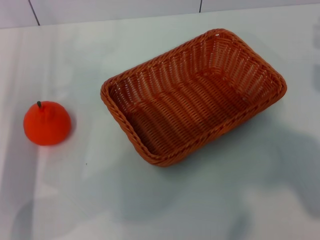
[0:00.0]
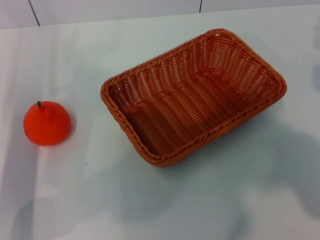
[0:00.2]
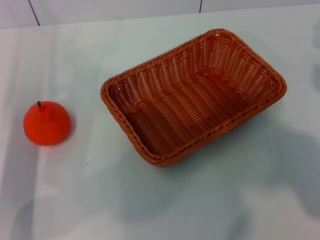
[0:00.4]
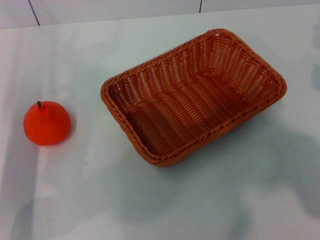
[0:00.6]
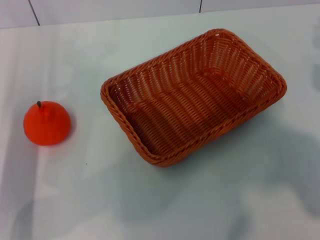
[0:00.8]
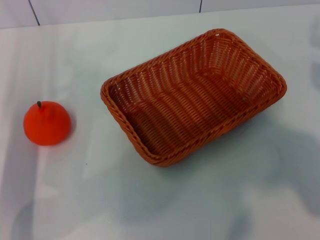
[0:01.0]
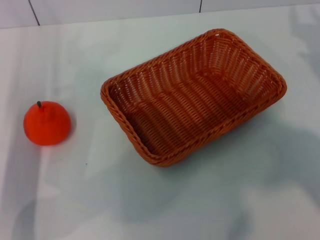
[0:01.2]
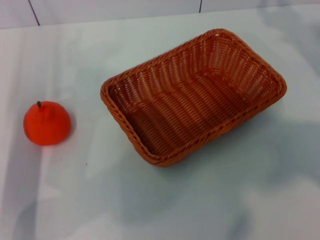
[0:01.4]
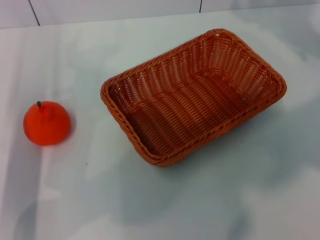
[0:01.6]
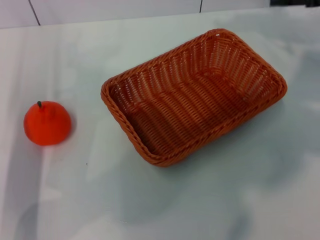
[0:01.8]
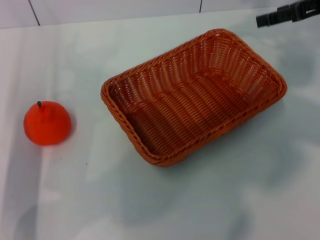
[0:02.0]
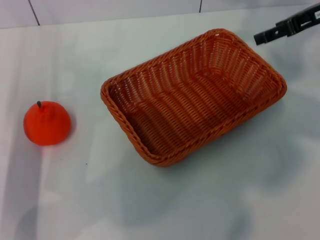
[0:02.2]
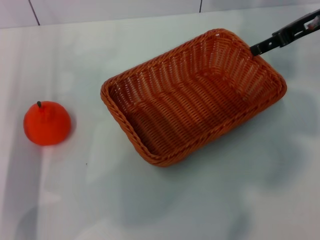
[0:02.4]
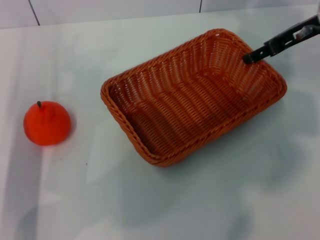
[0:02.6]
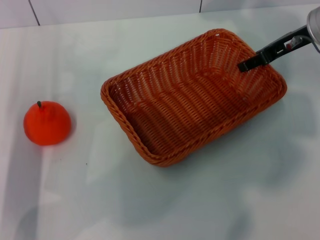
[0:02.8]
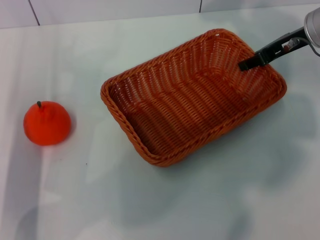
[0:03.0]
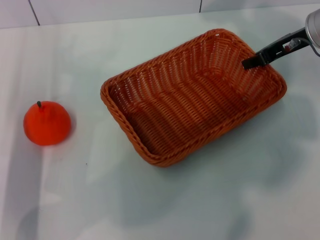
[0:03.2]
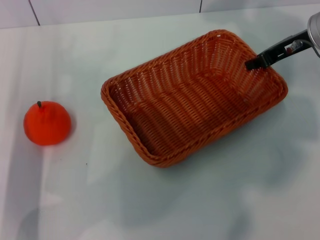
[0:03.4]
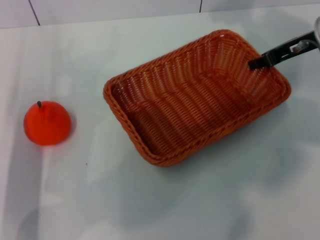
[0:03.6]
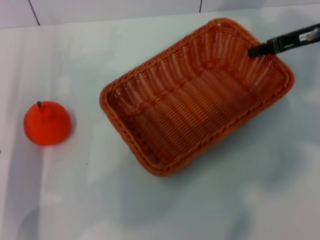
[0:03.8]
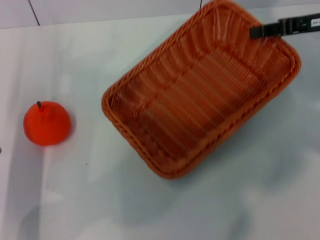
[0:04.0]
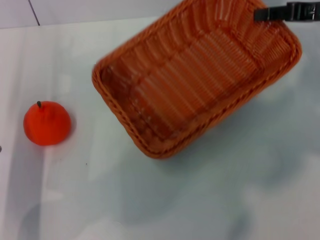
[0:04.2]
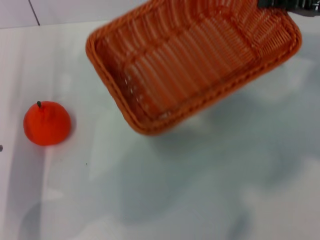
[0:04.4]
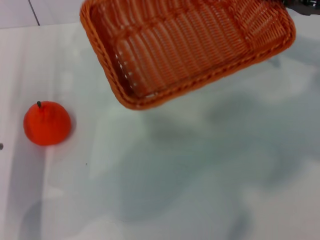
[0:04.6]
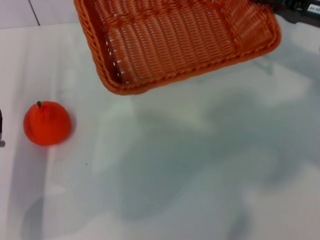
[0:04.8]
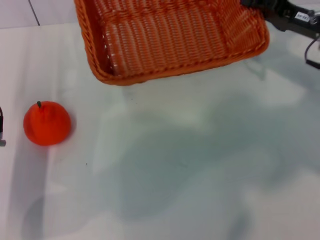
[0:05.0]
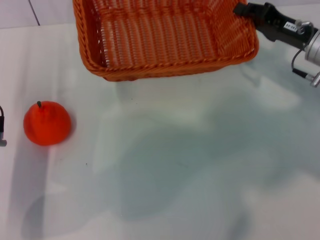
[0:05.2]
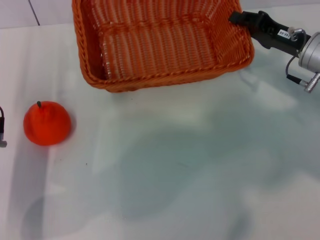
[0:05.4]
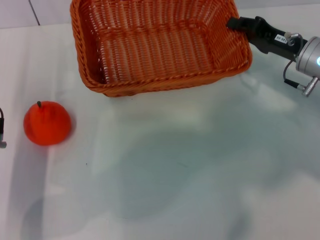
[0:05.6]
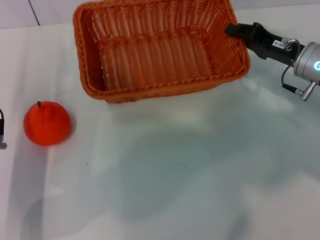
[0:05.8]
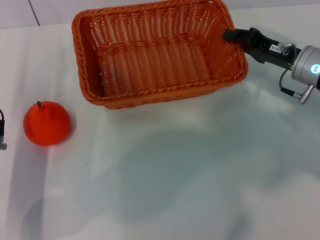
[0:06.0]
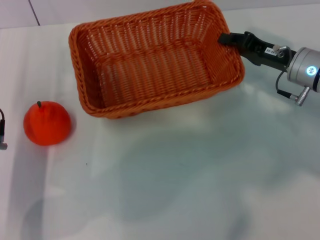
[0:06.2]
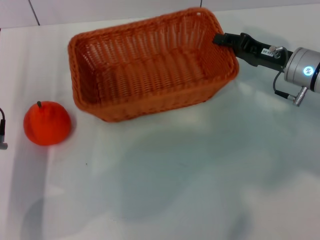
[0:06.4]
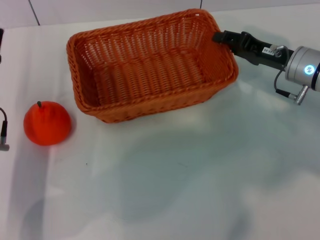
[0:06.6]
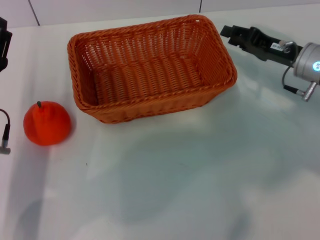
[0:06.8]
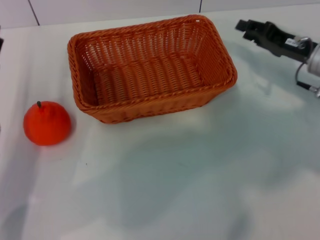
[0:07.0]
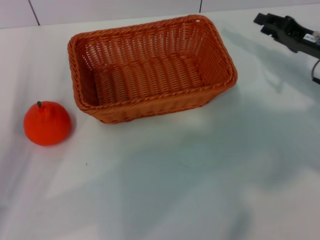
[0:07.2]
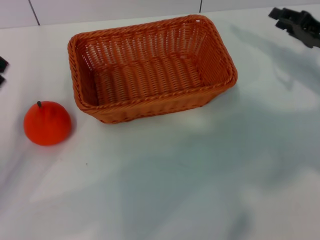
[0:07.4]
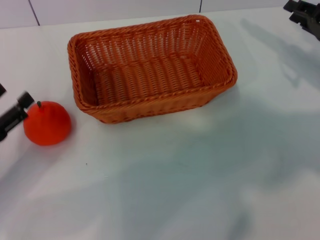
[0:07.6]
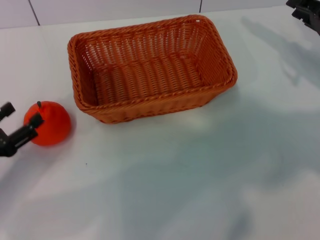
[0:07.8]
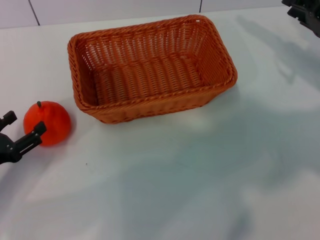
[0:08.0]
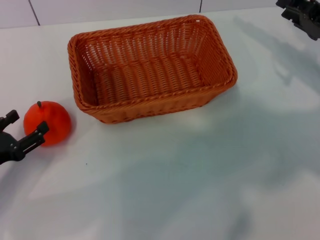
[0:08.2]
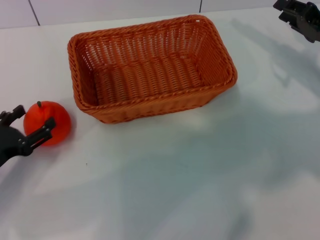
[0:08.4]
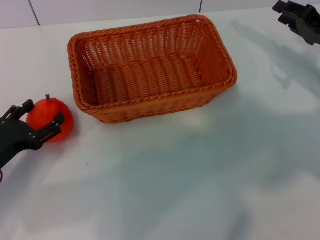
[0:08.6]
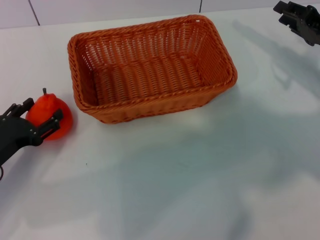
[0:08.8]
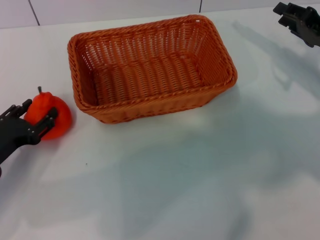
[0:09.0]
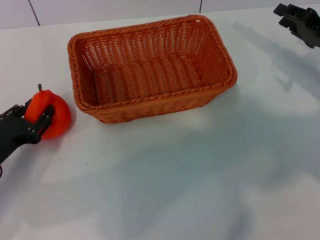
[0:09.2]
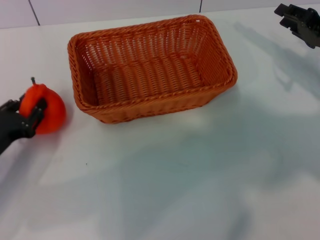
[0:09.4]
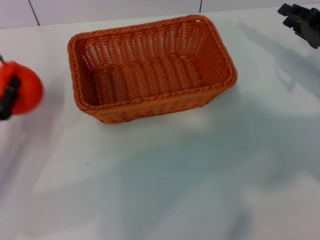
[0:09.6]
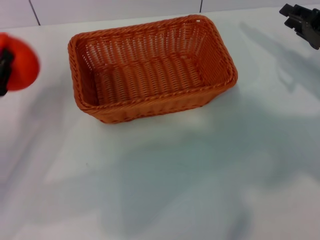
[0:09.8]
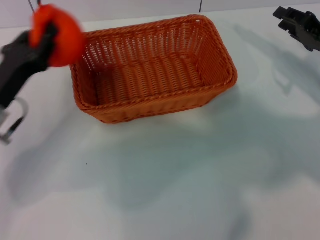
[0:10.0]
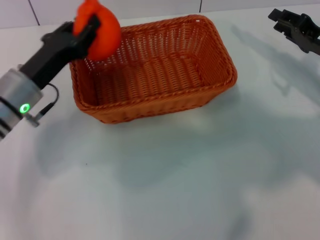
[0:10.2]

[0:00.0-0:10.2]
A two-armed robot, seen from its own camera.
Task of the whole recording: the right gripper pick up the yellow basket and place it horizontally in the middle of the table, the left gripper pick up the orange and place it into the yellow basket.
Step, 0.0 to 3.8 s: Pick up the light basket with the right gripper.
Step, 4.0 to 6.6 s: Place the light basket in the center of view with the right gripper.
Step, 6.8 to 9.4 s: Pick up the orange with the left gripper.
0.0 to 1.4 s: The right gripper moves upward and forward, about 10 cm.
1.4 to 3.0 s: The right gripper travels to the left and forward by about 15 cm, and opens and closes again.
3.0 to 4.4 s: The right gripper moves to the right, some 5 cm, and closes up.
4.4 to 5.8 s: The right gripper shifts approximately 10 cm downward and to the left.
5.8 to 7.2 s: The left gripper shifts by some 5 cm. Meanwhile the right gripper opens up.
8.8 to 10.2 s: The left gripper moves forward, to the right and upward, roughly 15 cm, and closes up.

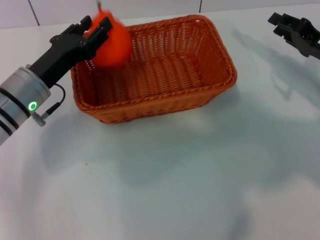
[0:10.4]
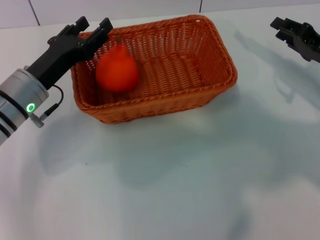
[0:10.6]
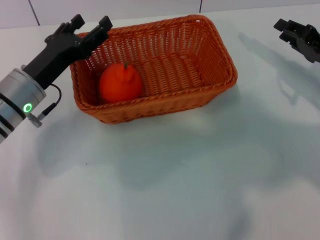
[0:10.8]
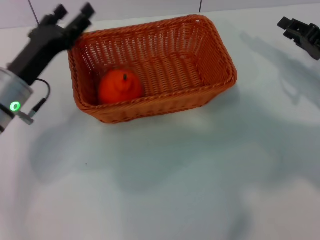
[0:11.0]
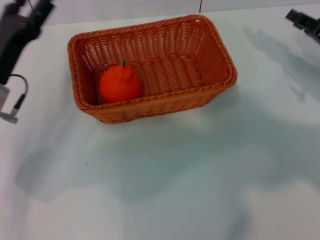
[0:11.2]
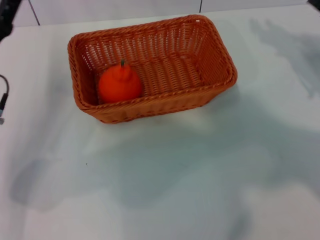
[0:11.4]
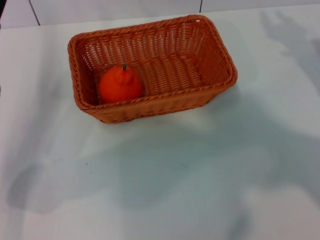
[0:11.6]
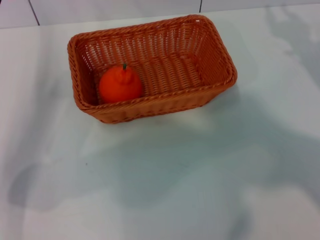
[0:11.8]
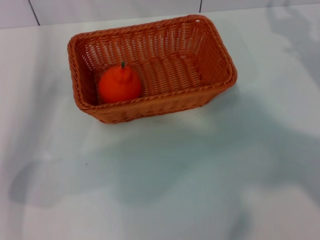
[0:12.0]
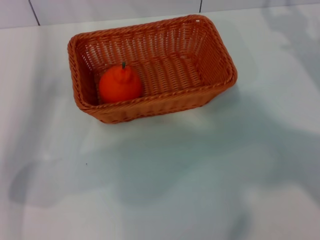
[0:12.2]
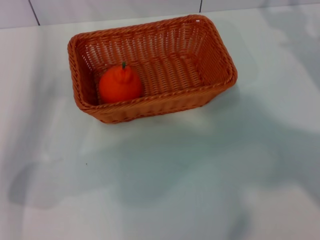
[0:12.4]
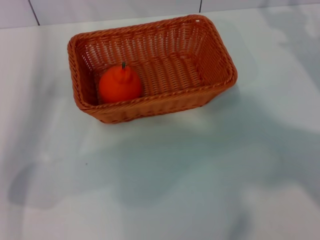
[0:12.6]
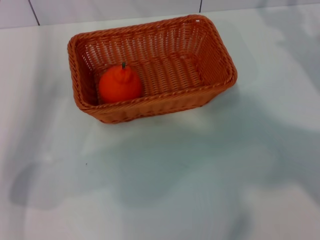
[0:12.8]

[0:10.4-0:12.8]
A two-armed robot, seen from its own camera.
Task of the whole recording: the right gripper pick up the yellow basket and place it horizontally in the middle of the table, the left gripper pick up the orange and place it into the yellow basket.
10.4 to 11.6 s: The left gripper moves to the left, approximately 5 cm, and opens up. The right gripper shifts by approximately 5 cm.

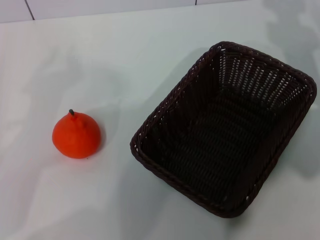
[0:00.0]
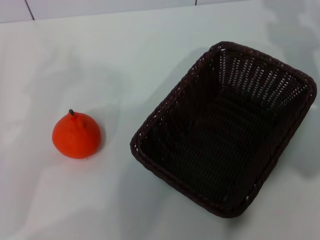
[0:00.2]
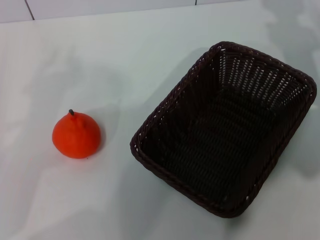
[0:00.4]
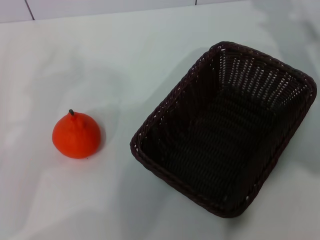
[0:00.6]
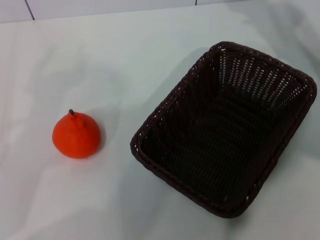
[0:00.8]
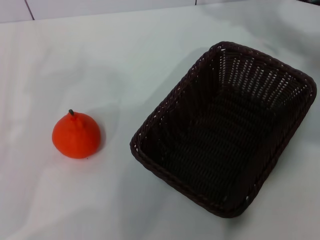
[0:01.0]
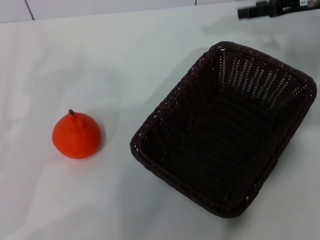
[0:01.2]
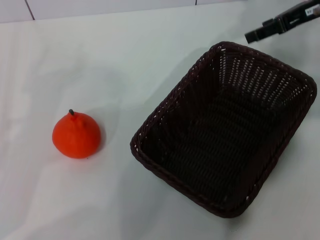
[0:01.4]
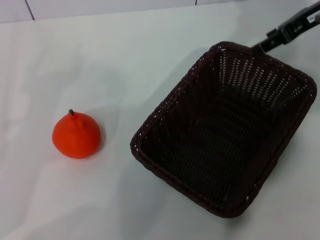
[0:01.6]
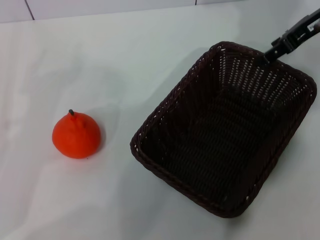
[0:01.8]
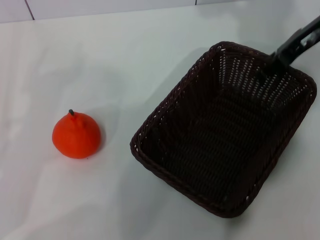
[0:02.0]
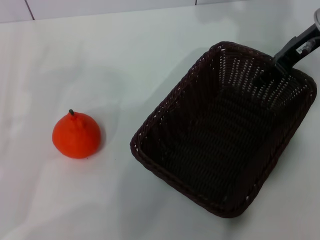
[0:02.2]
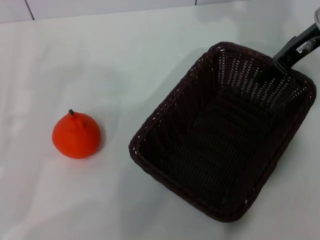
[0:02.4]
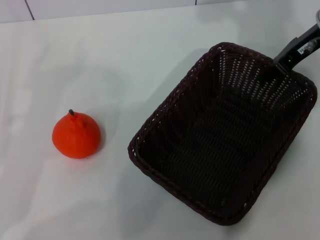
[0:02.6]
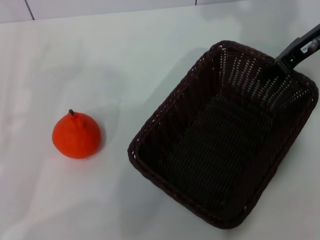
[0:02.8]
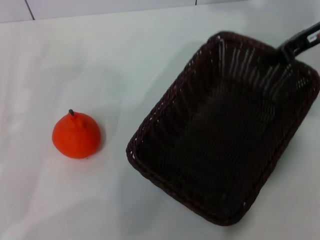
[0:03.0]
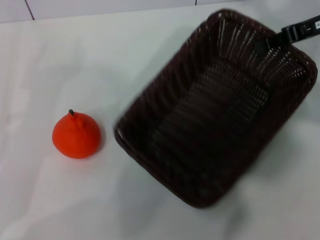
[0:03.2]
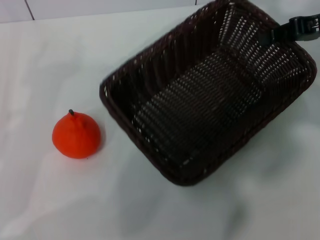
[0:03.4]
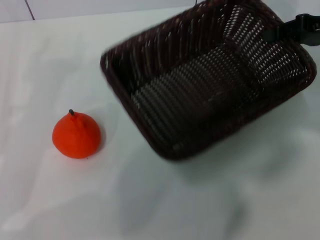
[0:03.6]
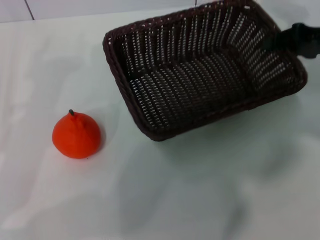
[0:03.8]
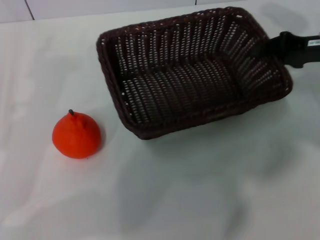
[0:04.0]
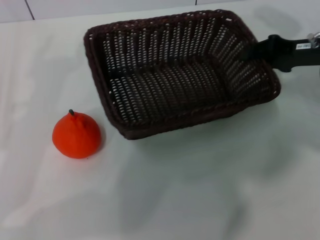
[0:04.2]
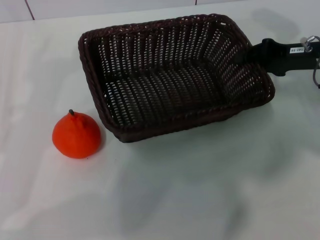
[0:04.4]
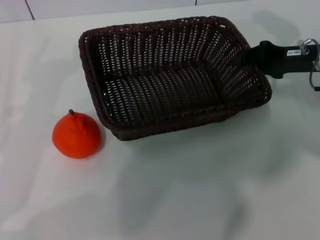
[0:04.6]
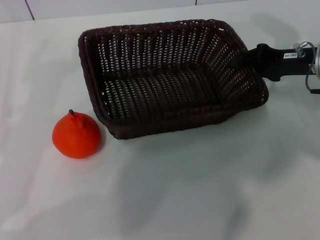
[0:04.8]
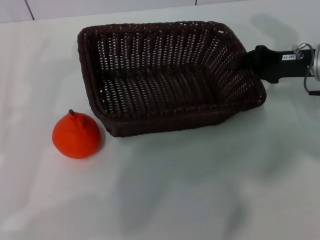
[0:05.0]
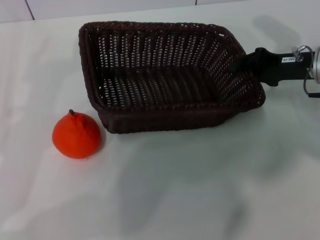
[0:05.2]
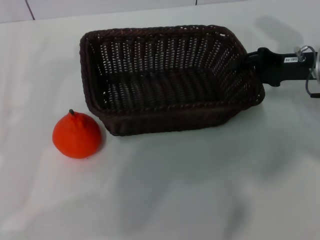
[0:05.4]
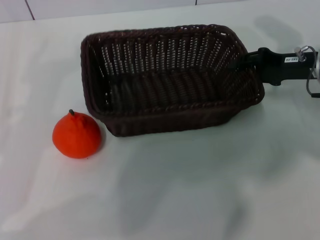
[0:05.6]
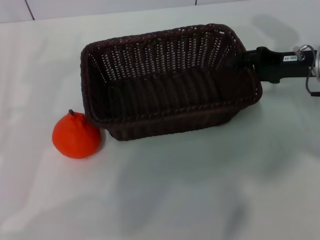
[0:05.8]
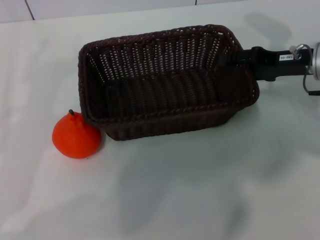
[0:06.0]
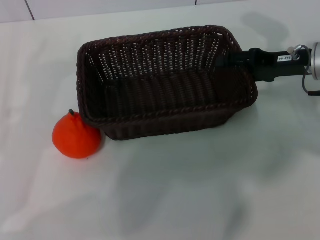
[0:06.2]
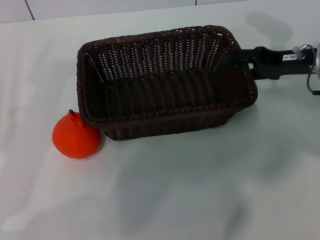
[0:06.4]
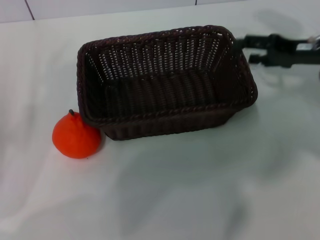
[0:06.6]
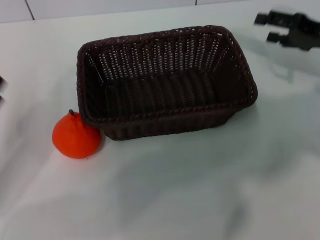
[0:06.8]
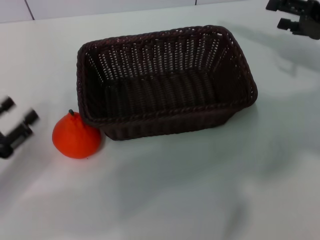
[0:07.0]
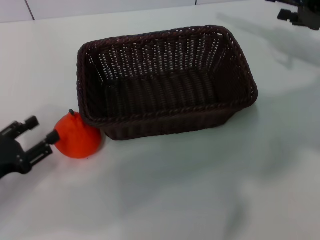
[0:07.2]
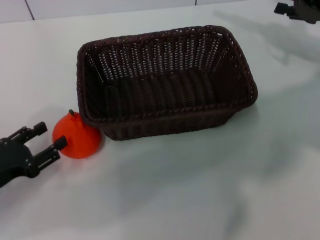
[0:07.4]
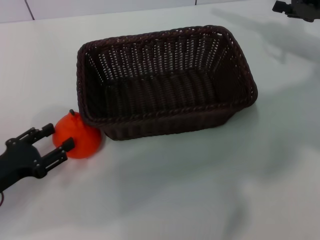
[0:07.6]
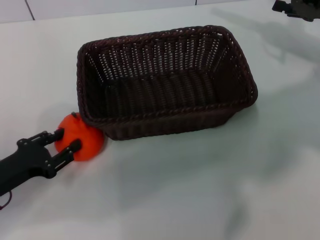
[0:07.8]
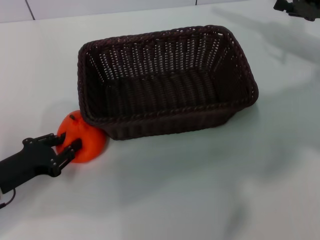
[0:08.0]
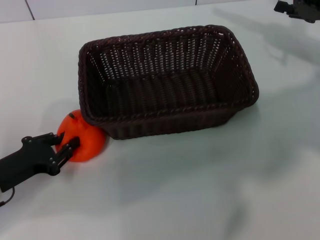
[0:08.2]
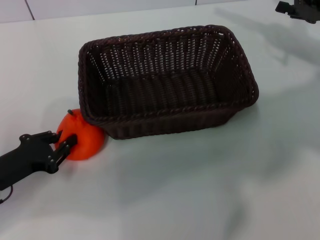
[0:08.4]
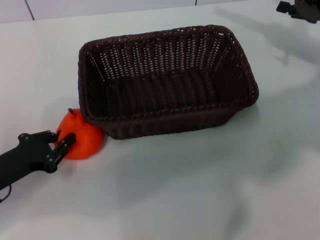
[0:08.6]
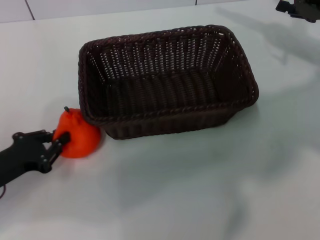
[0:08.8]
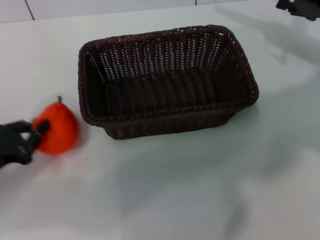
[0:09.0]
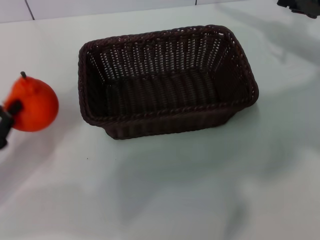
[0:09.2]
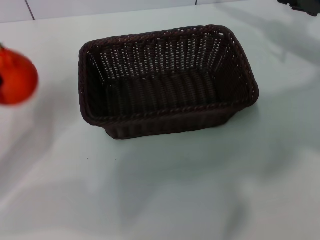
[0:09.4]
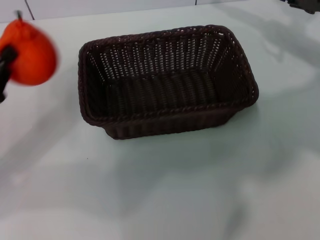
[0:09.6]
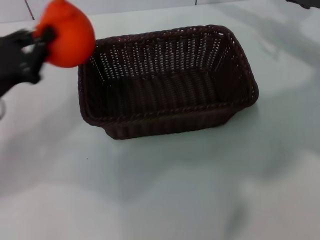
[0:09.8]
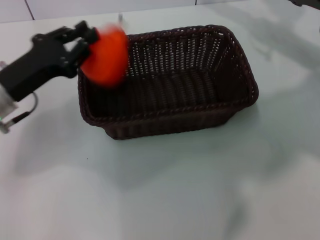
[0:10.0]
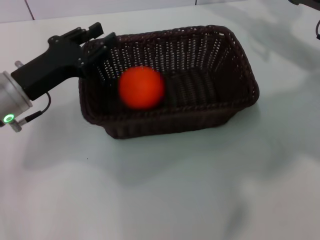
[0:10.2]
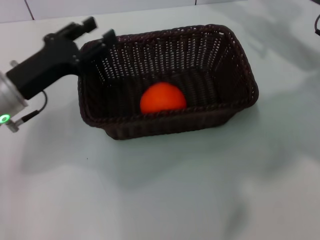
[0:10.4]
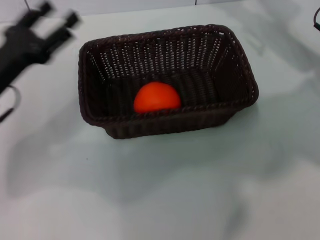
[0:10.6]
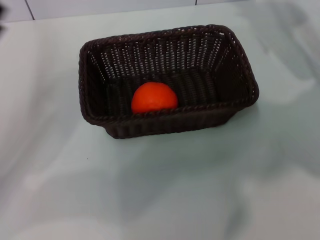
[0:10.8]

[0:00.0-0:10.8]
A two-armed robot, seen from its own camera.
Task of the whole recording: the right gripper pick up the black basket and place it horizontally in the middle of the table, the left gripper pick up the orange and place it into the black basket.
Step, 0.0 to 3.4 s: Pick up the dark basket with the right gripper.
Step, 3.6 to 6.6 s: Place the dark basket in the center of view with the right gripper.
Step, 6.8 to 9.4 s: Pick up the orange with the left gripper.
Step, 9.6 to 10.4 s: Place the orange into the dark basket with the left gripper.
0.0 to 1.6 s: The right gripper goes about 10 cm upward.
1.6 to 3.0 s: The right gripper closes its fingers.
3.0 to 4.6 s: The right gripper shifts approximately 10 cm downward.
4.6 to 6.2 s: The right gripper opens.
6.2 to 7.8 s: The right gripper is displaced to the right by approximately 5 cm. Meanwhile the left gripper ends up approximately 5 cm from where it was.
7.8 to 9.2 s: The left gripper shifts by approximately 5 cm, and closes up.
9.2 to 10.8 s: The left gripper reaches approximately 10 cm to the right, then returns, and opens its fingers.
